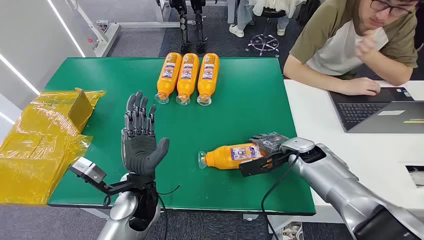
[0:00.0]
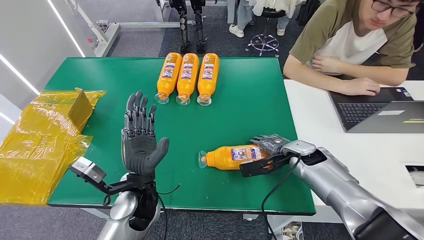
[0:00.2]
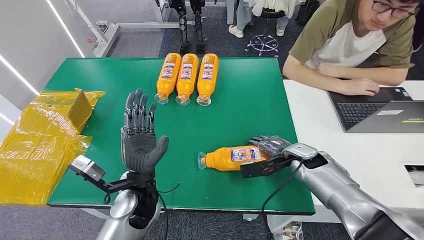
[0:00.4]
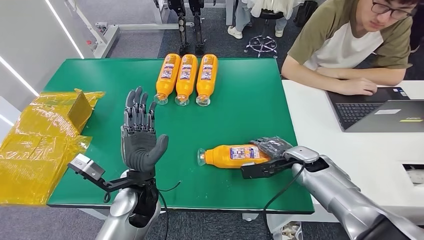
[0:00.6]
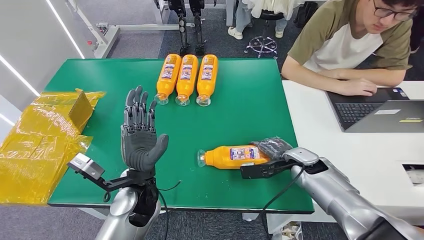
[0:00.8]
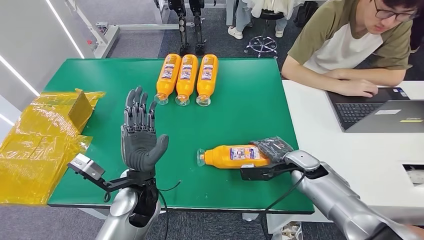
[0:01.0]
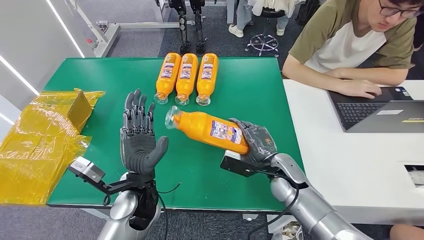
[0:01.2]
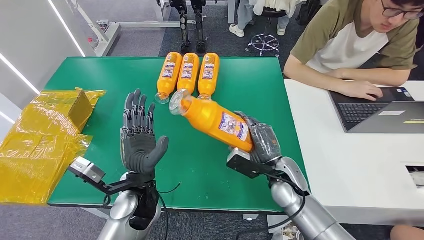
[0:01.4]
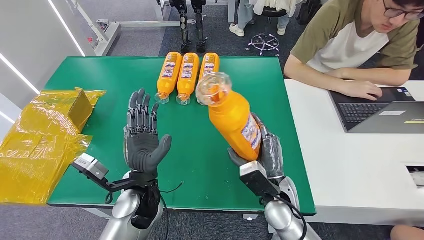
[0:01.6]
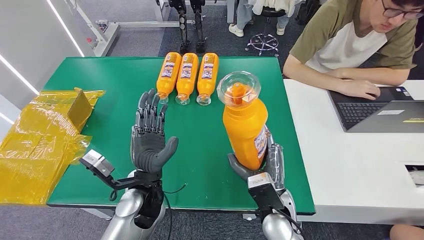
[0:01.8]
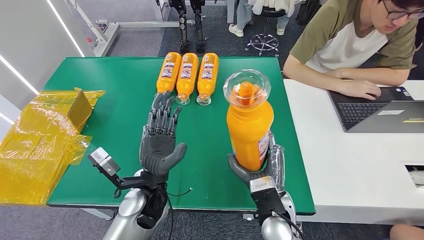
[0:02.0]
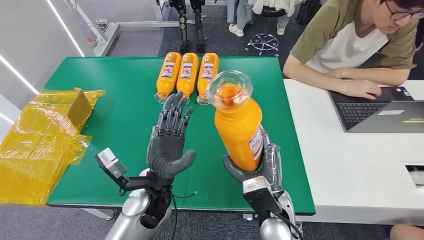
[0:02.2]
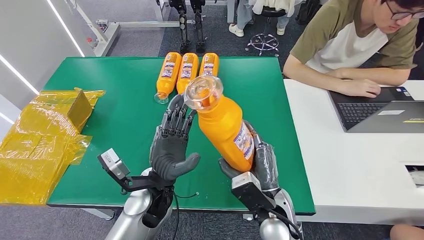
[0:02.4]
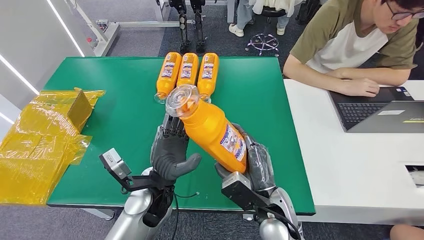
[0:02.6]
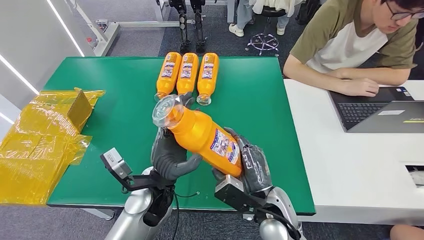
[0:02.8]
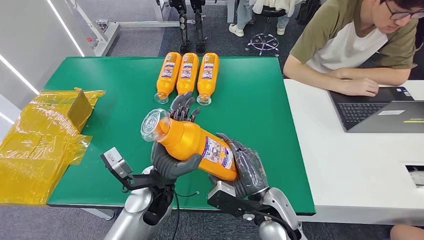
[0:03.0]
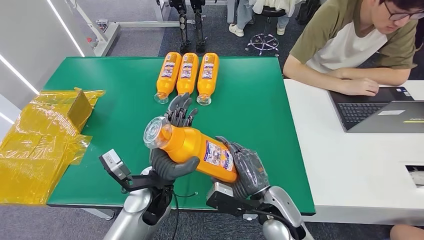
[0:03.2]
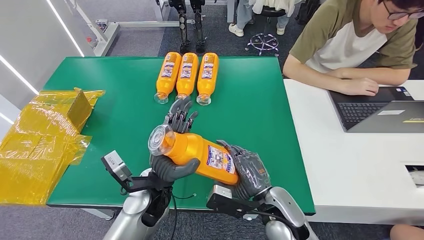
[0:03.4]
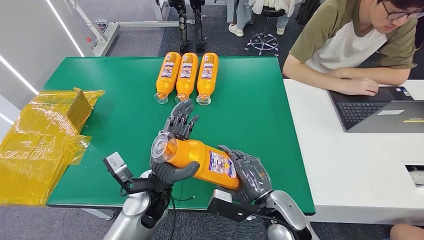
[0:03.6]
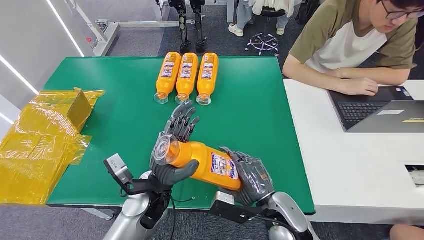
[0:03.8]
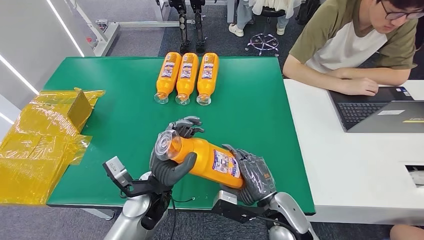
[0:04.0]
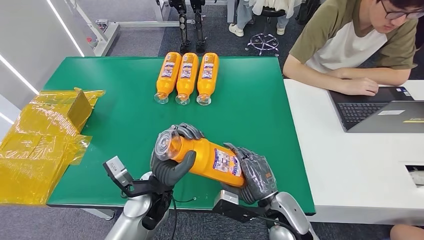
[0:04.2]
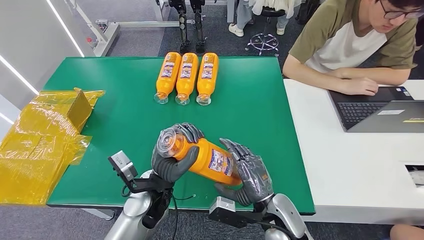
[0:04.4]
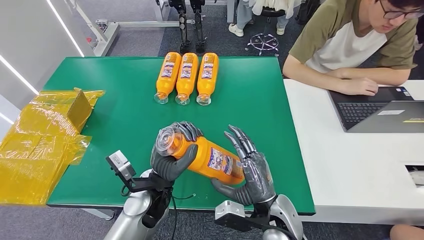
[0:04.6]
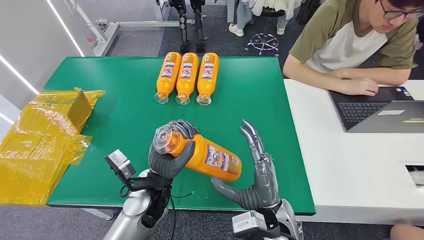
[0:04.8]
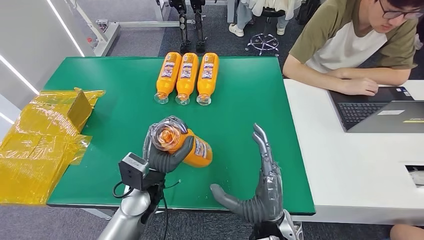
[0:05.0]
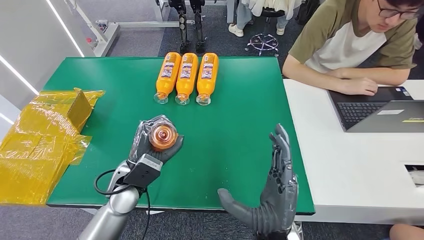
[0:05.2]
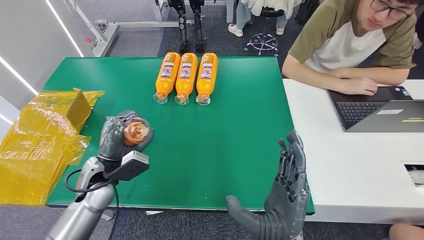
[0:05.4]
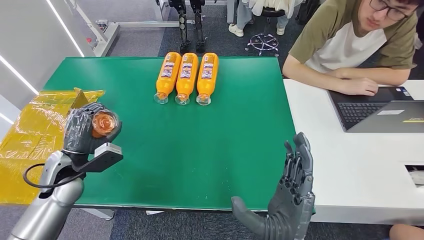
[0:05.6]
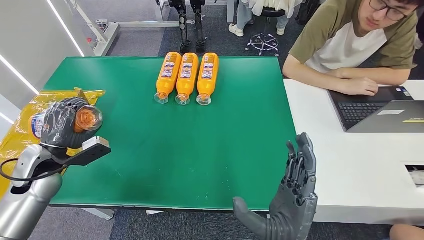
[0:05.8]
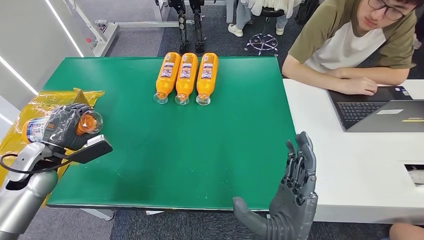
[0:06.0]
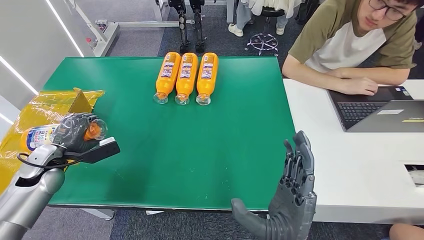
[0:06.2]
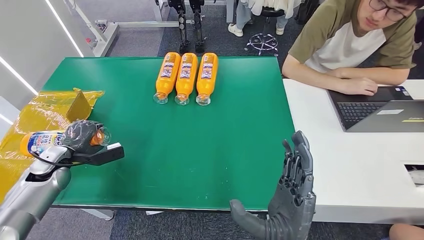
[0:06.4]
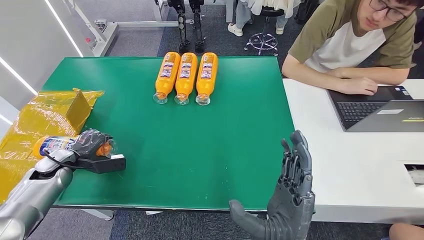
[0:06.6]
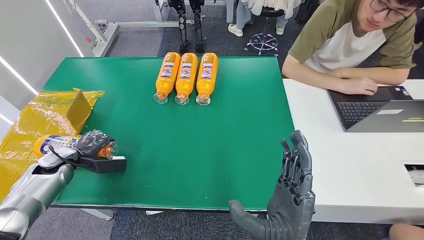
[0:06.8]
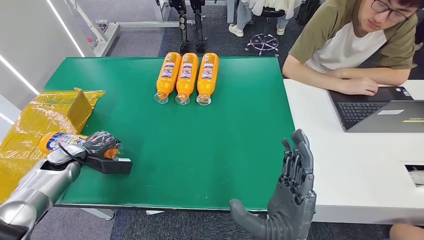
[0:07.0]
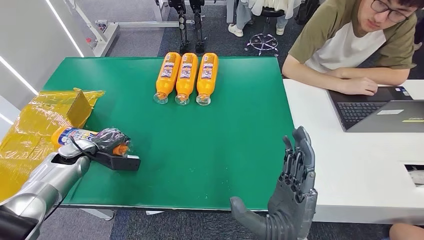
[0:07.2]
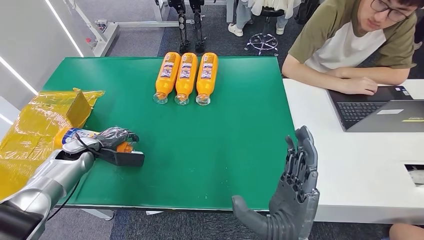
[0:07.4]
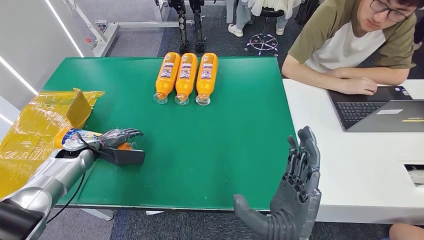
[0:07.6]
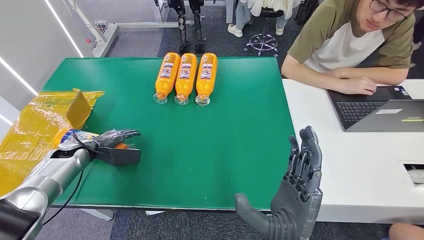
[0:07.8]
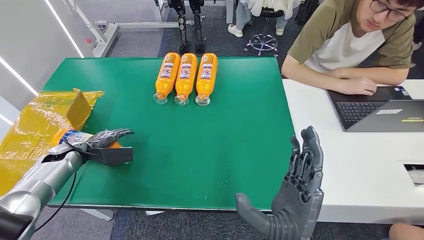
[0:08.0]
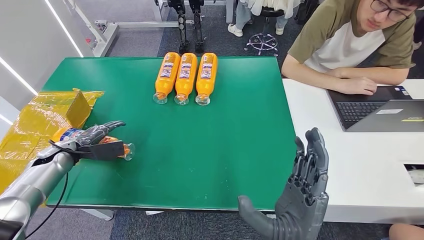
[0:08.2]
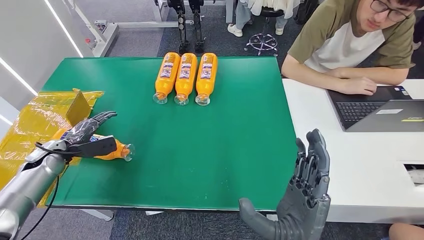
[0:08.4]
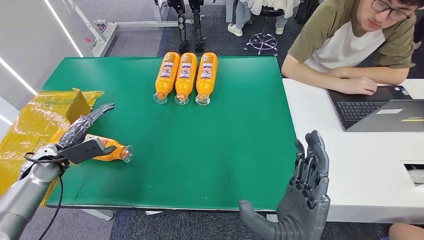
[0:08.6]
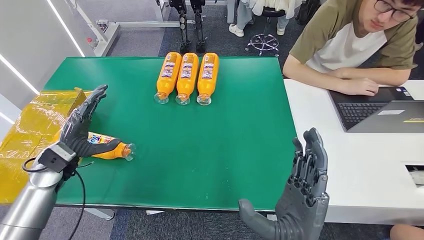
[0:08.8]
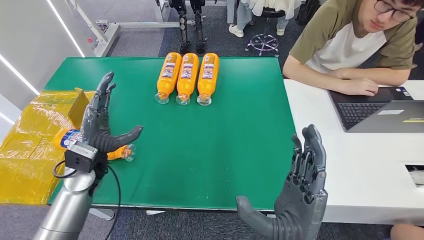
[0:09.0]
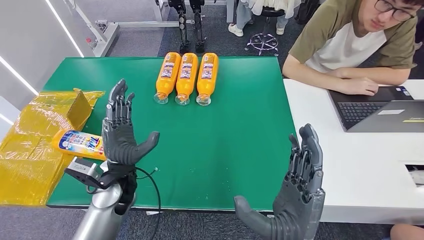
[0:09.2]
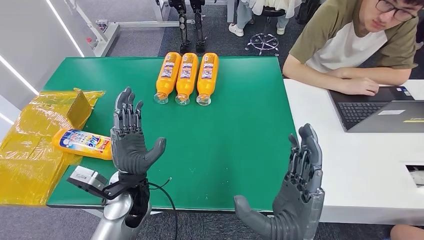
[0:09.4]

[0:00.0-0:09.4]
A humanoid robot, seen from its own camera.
Step, 0:00.0 to 0:02.0: Pick up the bottle from the table.
Step, 0:02.2 to 0:09.4: Turn the bottle to the front side.
0:04.8 to 0:06.2: The left hand shifts some 35 cm to the left, while the right hand goes about 5 cm backward.
0:06.2 to 0:07.8: The left hand is displaced forward by some 5 cm.
0:07.8 to 0:09.4: The left hand heads to the right, covering approximately 25 cm.

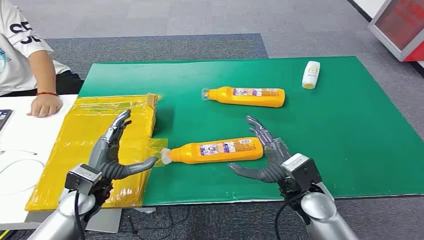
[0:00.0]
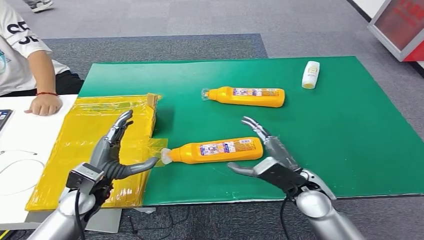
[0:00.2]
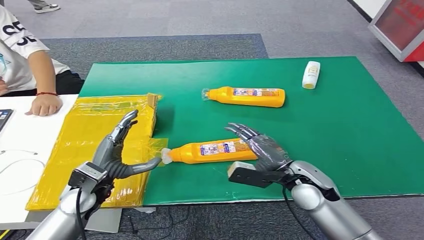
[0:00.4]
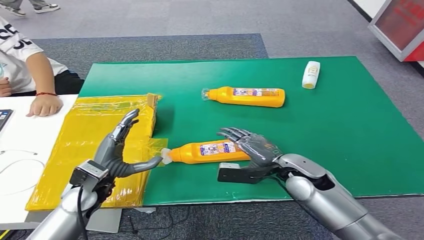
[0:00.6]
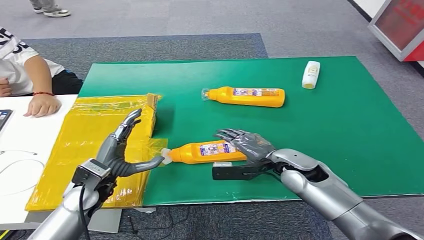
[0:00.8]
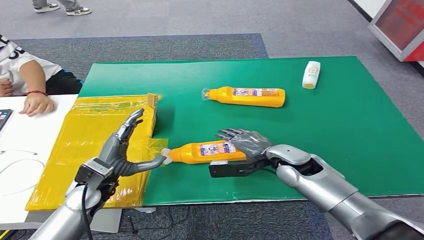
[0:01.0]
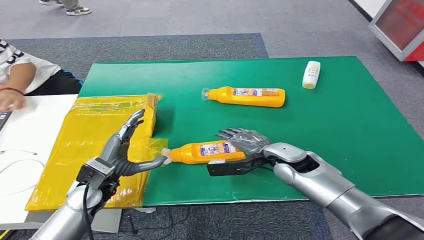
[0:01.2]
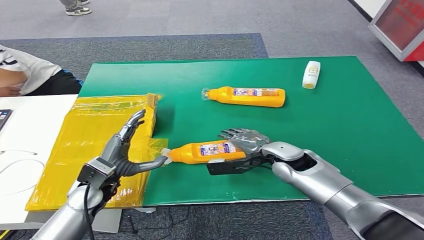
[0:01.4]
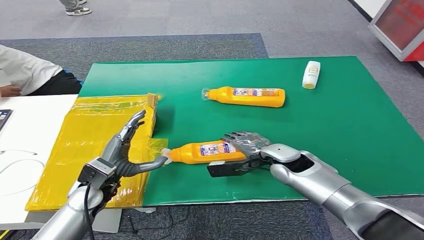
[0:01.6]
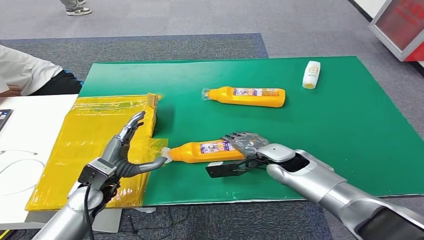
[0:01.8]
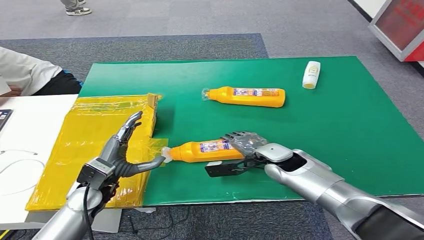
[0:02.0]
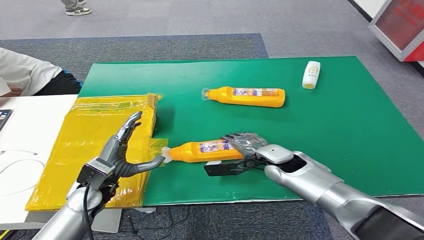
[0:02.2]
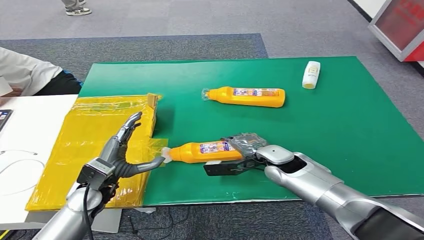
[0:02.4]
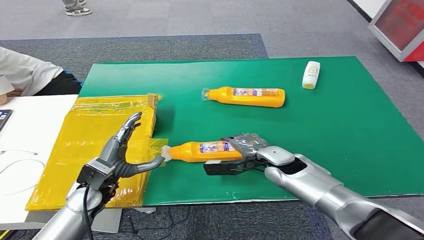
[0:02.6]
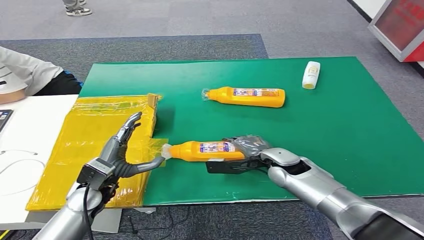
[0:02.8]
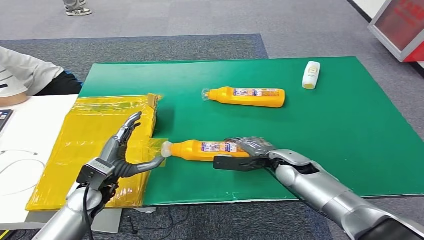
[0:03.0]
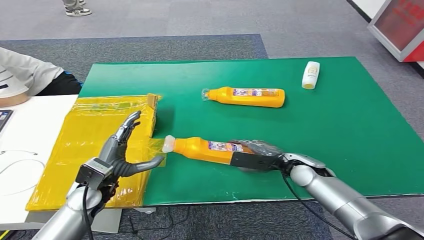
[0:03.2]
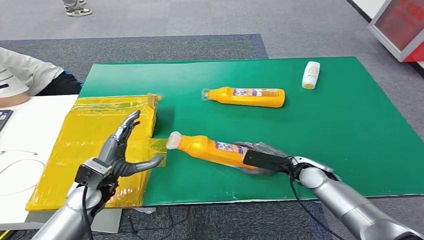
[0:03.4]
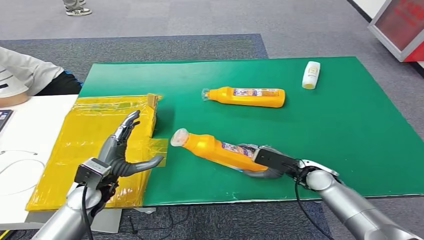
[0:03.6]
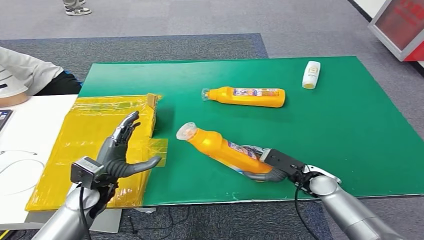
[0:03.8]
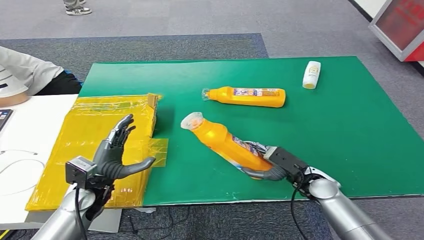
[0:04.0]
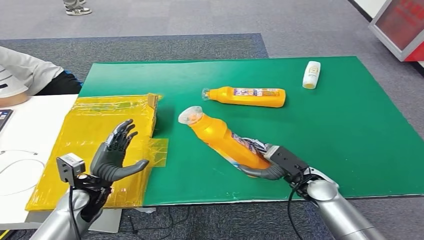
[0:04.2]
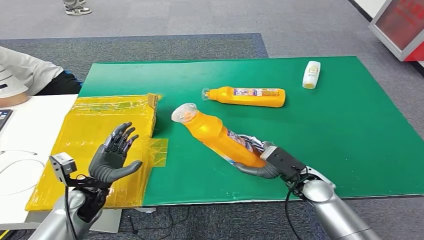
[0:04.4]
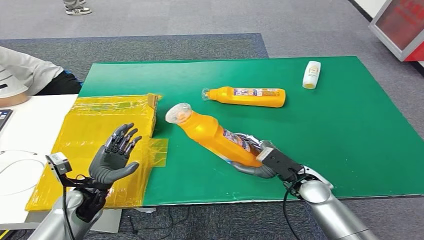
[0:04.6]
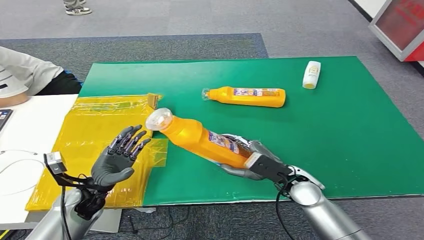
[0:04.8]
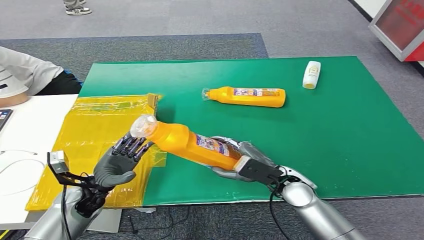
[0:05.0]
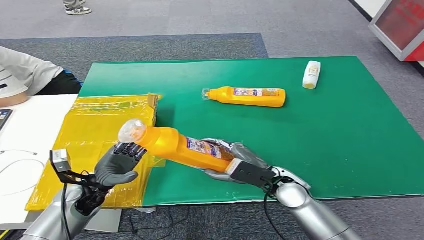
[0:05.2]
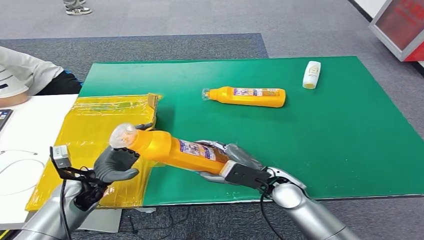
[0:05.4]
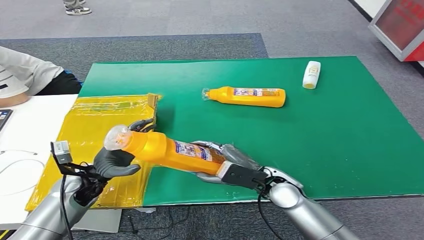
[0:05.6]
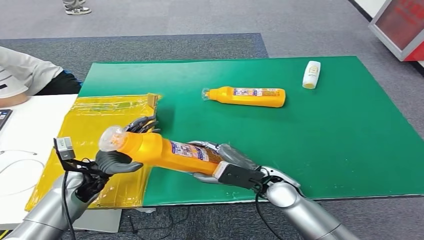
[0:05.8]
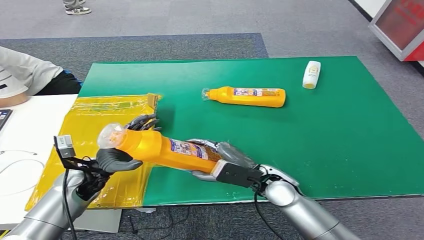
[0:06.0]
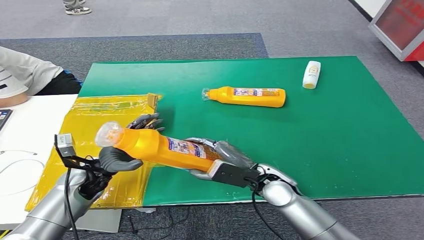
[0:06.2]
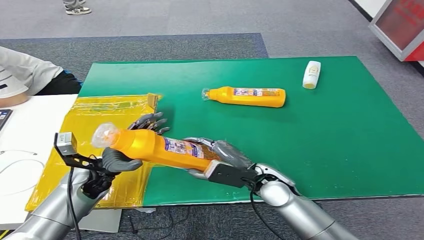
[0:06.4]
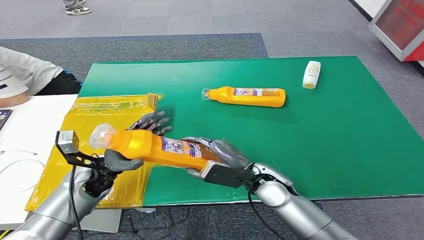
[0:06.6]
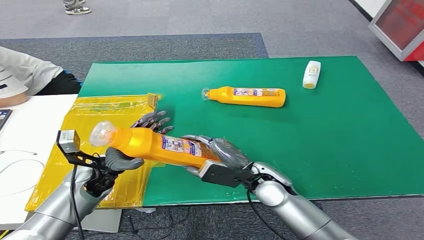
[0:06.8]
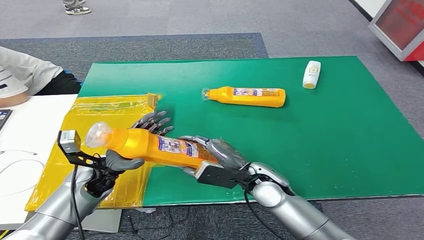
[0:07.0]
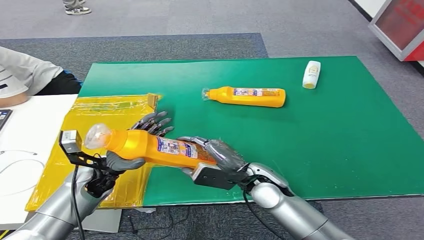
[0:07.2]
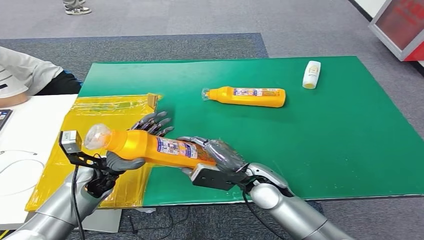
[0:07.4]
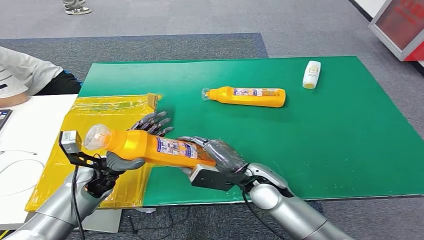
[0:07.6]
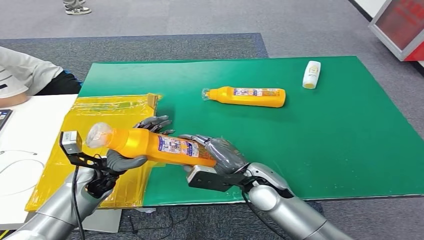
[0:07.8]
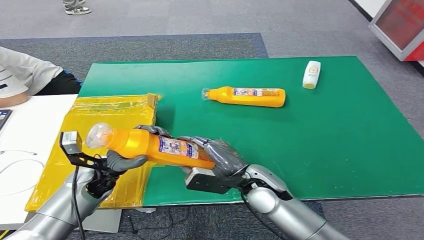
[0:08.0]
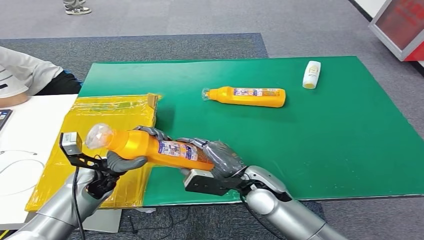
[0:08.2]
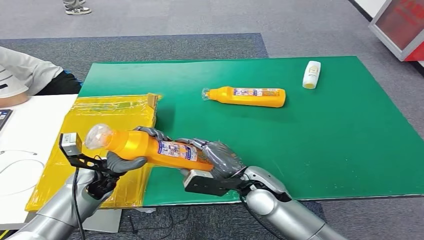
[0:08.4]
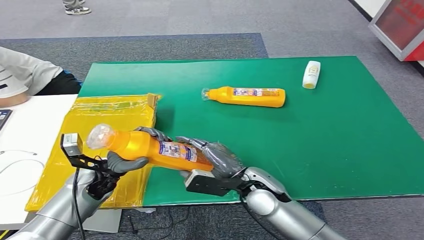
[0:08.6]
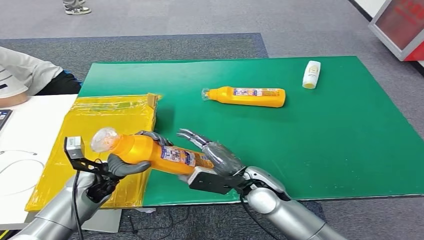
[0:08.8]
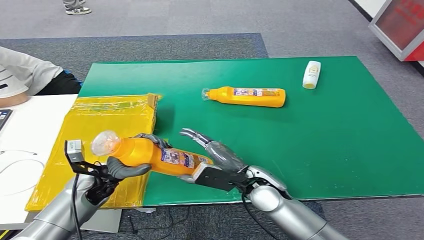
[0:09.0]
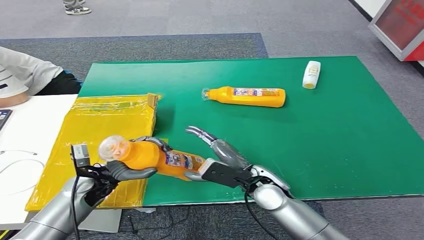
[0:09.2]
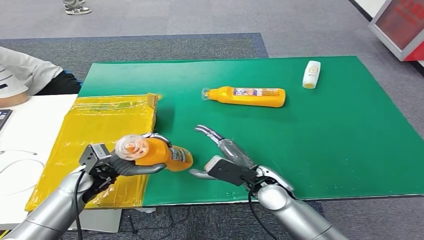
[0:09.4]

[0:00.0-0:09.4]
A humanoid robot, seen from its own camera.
Step, 0:00.0 to 0:04.2: Pick up the bottle from the table.
0:01.6 to 0:03.2: The right hand goes about 5 cm to the right.
0:03.2 to 0:04.8: The left hand changes place by about 5 cm; the right hand heads backward, covering some 5 cm.
0:04.8 to 0:06.2: The left hand moves roughly 5 cm, while the right hand goes roughly 5 cm to the left.
0:06.2 to 0:07.8: The hands move only a little.
